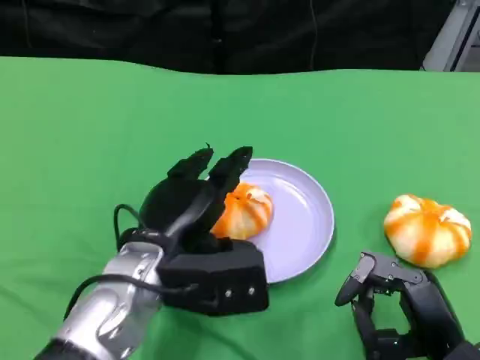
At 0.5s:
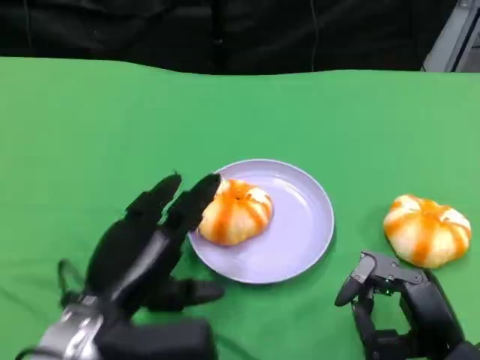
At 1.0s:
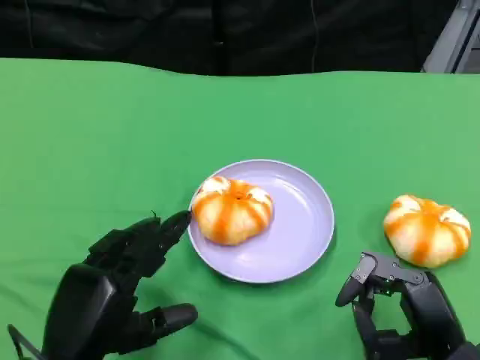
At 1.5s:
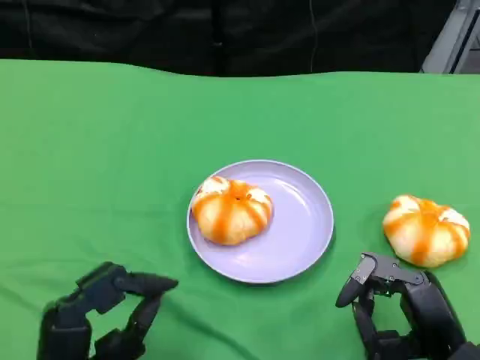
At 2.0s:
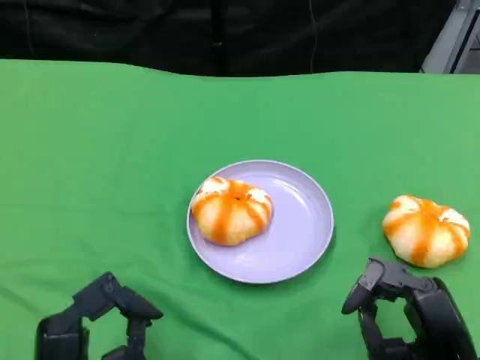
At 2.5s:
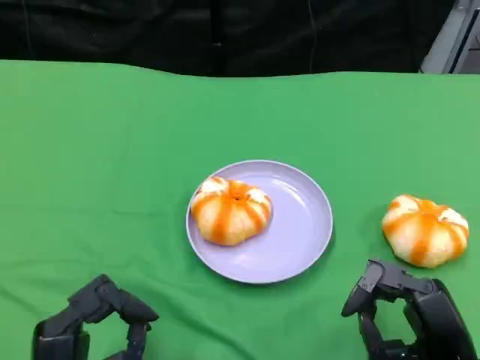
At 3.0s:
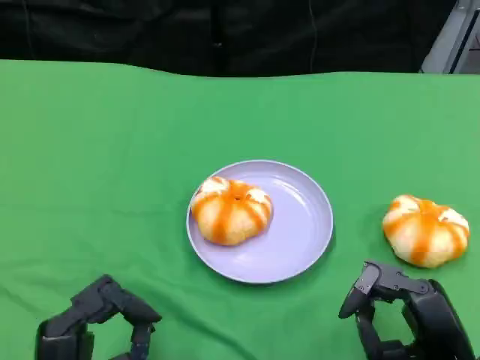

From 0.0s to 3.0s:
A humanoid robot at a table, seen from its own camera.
Task of the whole recording: Grasp the bread from the table and place it into the plate.
From 0.0s to 1.5s: The left hand is displaced backward, to the left and downward by about 15 cm.
From 1.5s to 3.0s: The hands make only small movements.

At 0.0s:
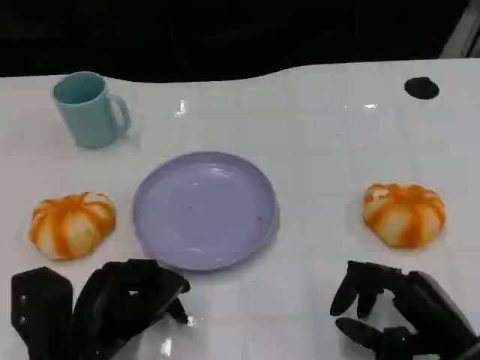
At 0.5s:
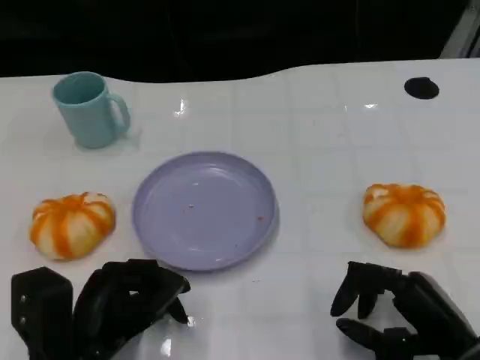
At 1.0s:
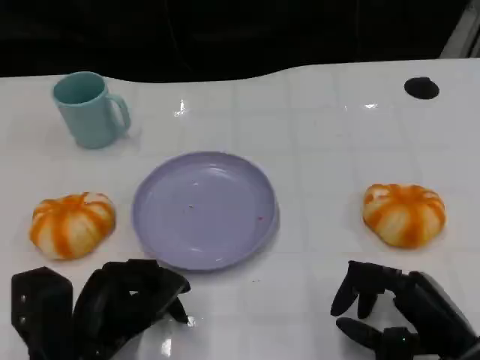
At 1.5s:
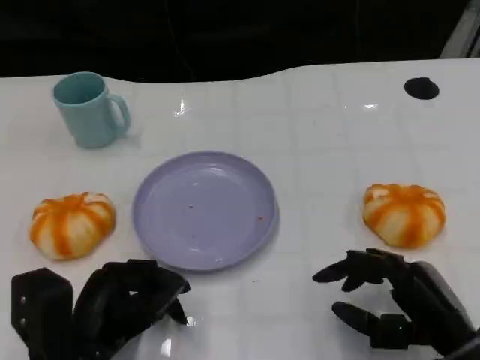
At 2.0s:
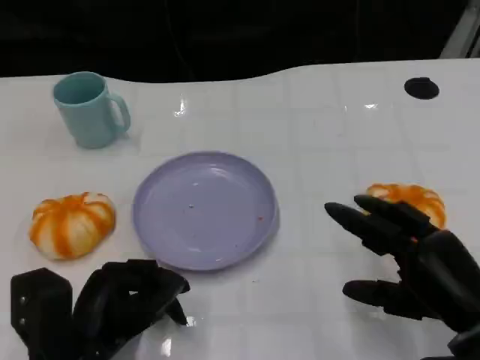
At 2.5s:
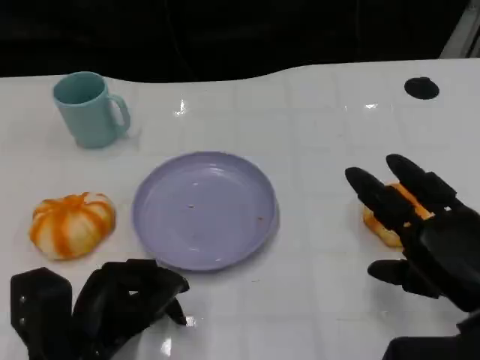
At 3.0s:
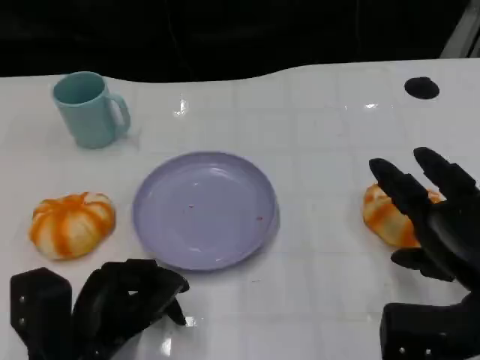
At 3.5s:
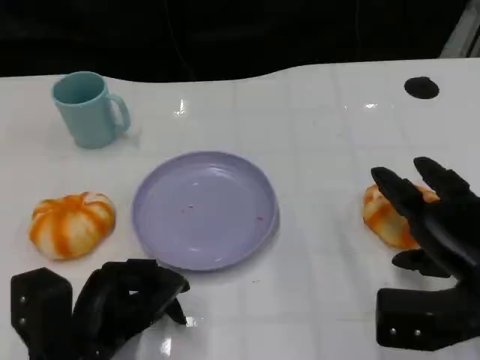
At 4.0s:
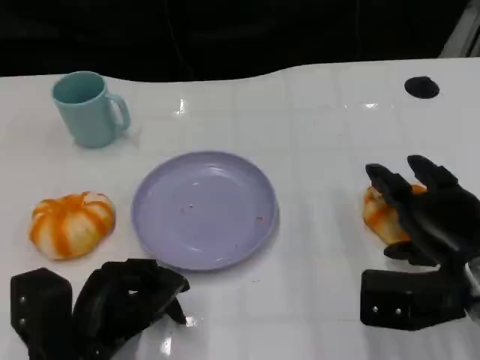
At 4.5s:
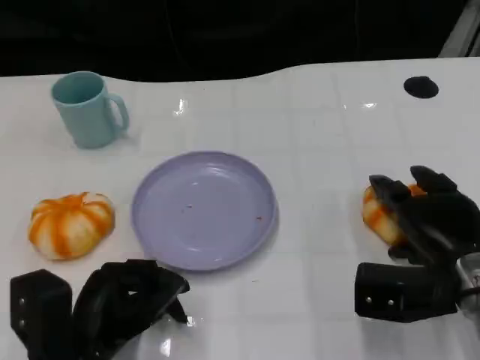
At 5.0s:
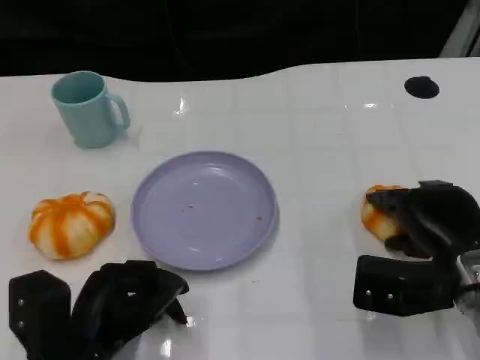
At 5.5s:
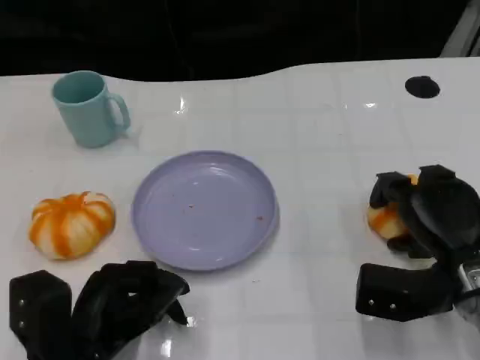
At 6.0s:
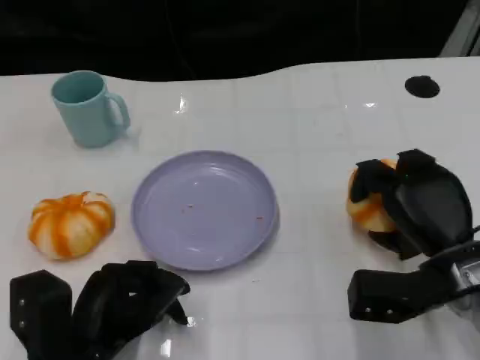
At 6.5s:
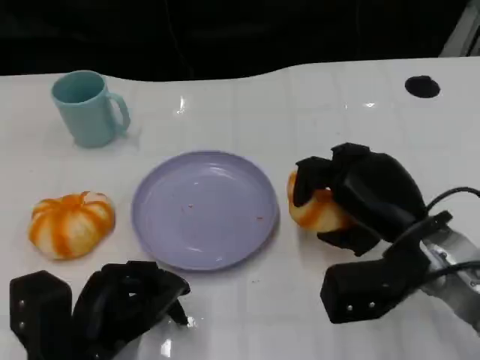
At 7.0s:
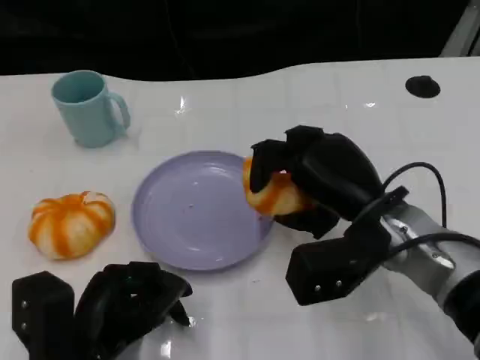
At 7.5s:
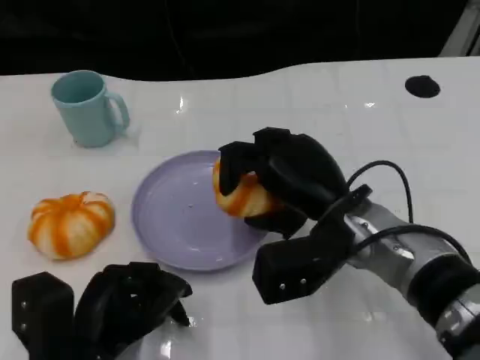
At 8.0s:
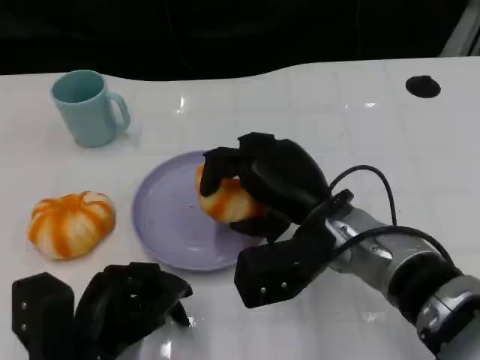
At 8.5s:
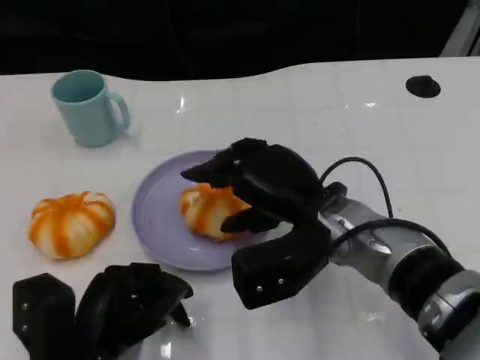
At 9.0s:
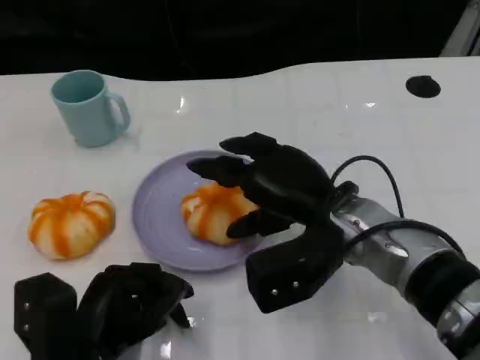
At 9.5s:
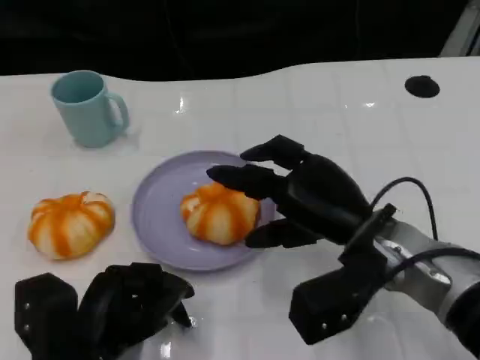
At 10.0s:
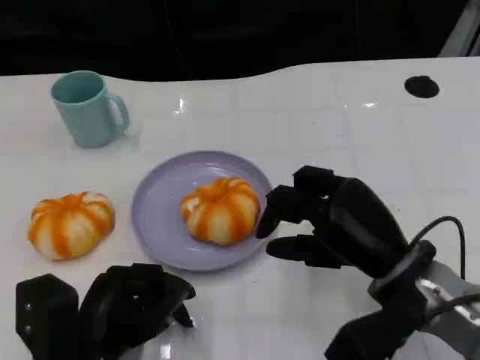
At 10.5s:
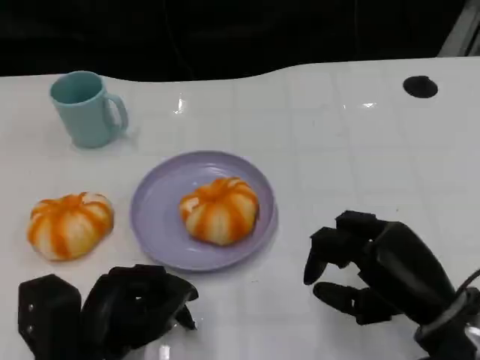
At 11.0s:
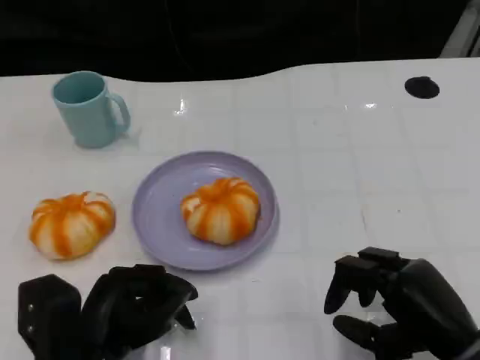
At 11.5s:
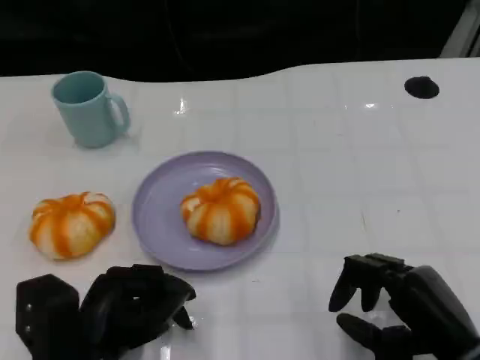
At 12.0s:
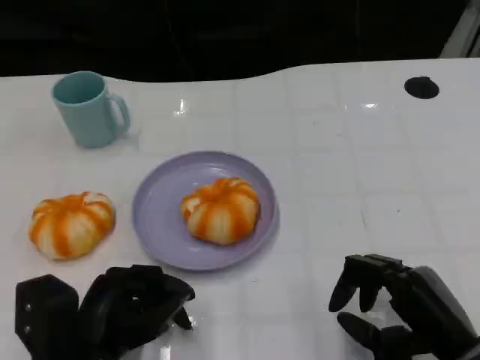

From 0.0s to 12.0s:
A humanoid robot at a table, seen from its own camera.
Task of the whole recording: Grasp the bread from the table and place it into the plate.
From 2.0s to 4.0s: The right hand is displaced forward by roughly 5 cm.
From 6.0s to 8.0s: The right hand goes some 15 cm to the left.
From 8.0s to 10.0s: The right hand moves to the right, roughly 10 cm.
From 10.0s to 12.0s: The right hand shifts roughly 10 cm backward and to the right.

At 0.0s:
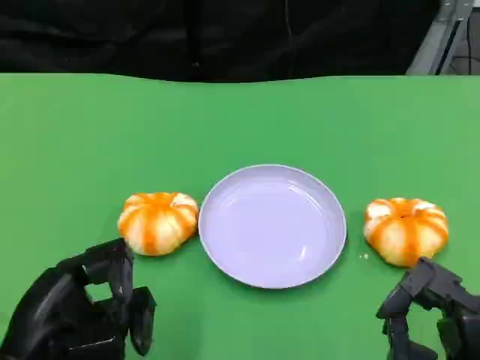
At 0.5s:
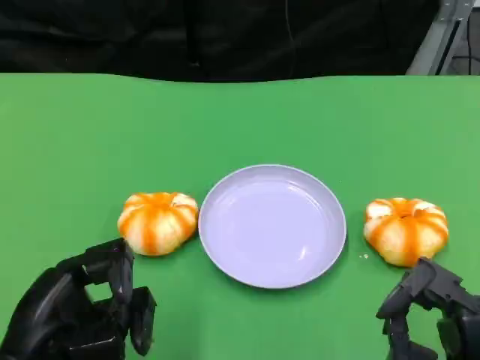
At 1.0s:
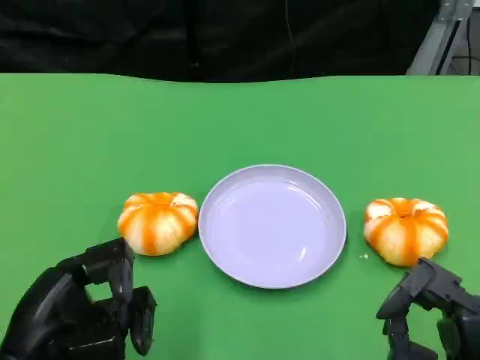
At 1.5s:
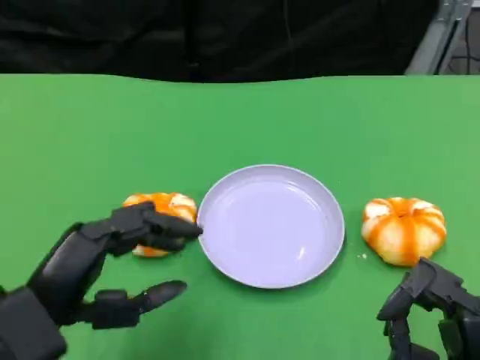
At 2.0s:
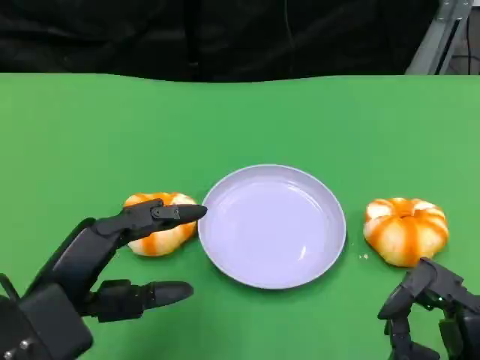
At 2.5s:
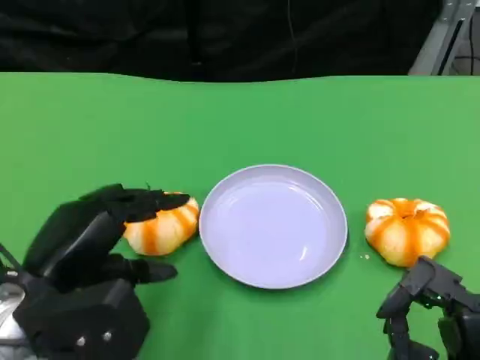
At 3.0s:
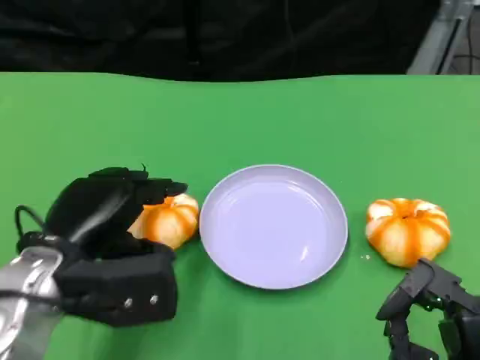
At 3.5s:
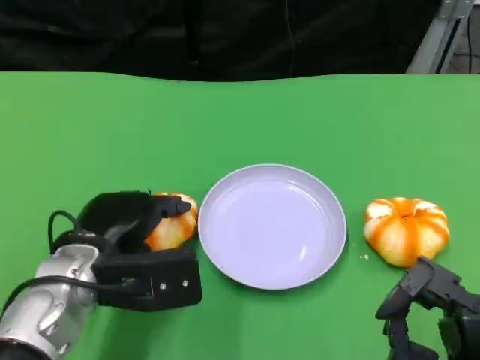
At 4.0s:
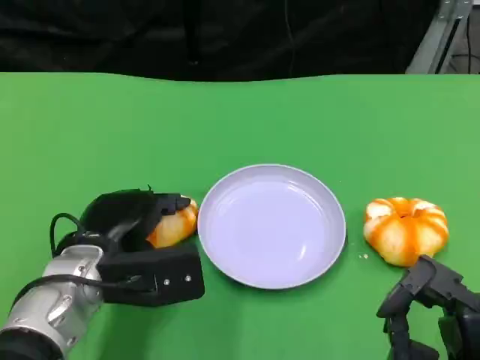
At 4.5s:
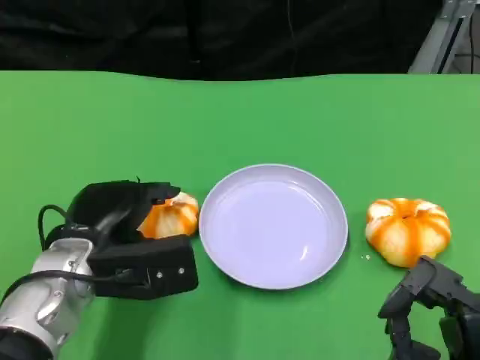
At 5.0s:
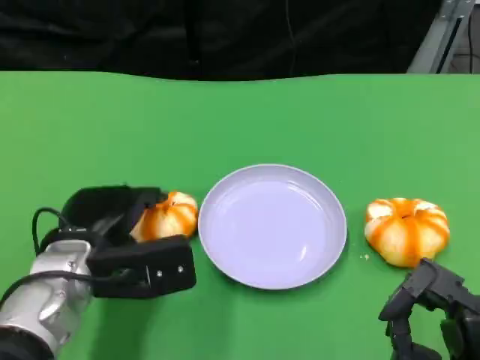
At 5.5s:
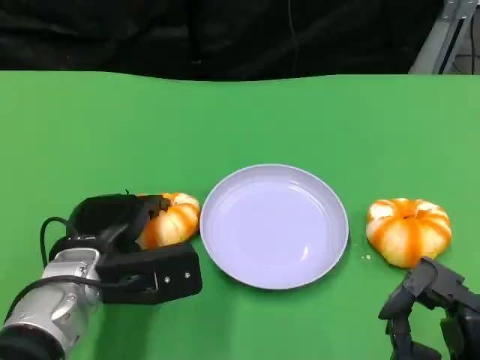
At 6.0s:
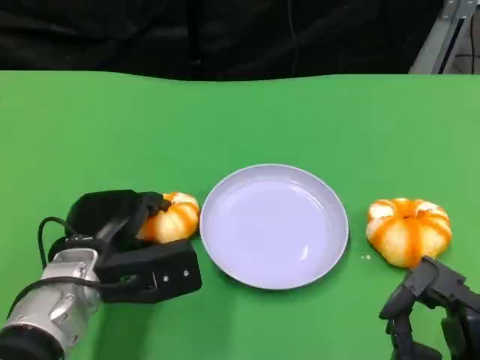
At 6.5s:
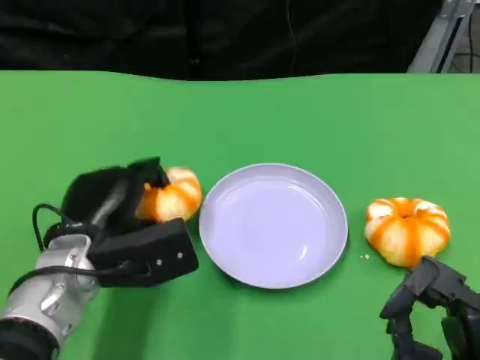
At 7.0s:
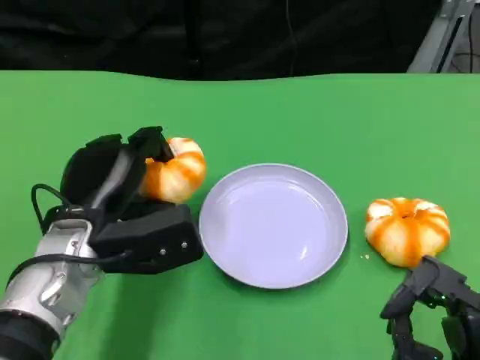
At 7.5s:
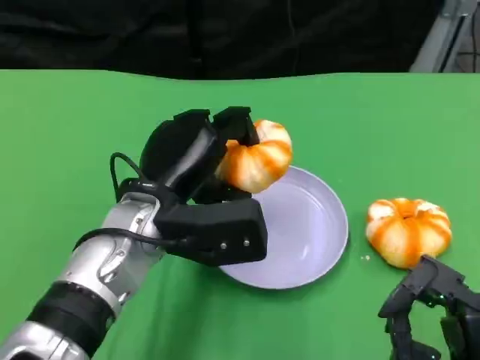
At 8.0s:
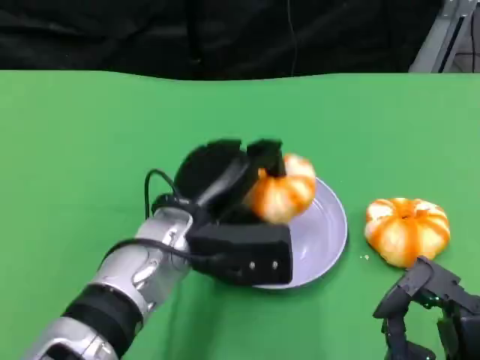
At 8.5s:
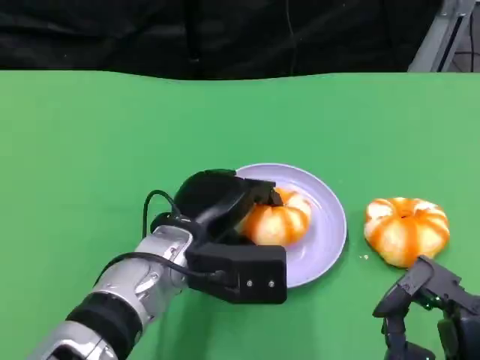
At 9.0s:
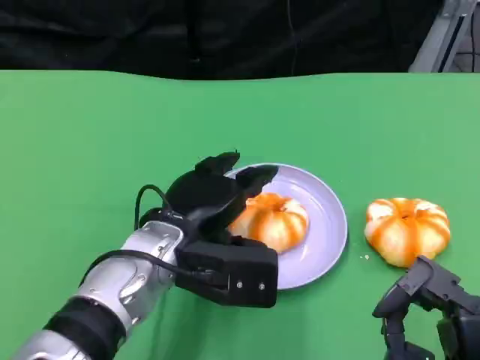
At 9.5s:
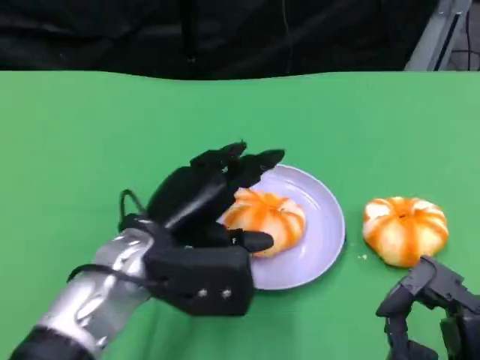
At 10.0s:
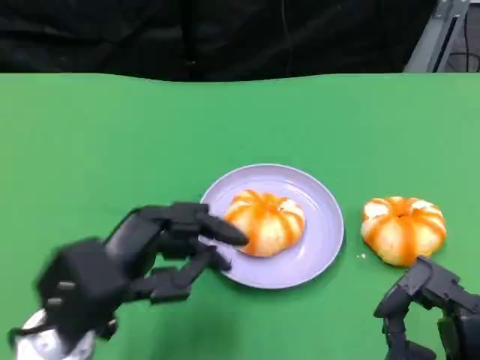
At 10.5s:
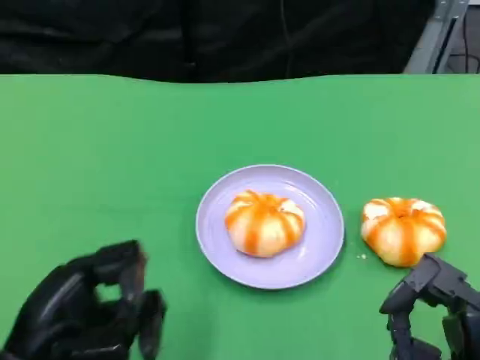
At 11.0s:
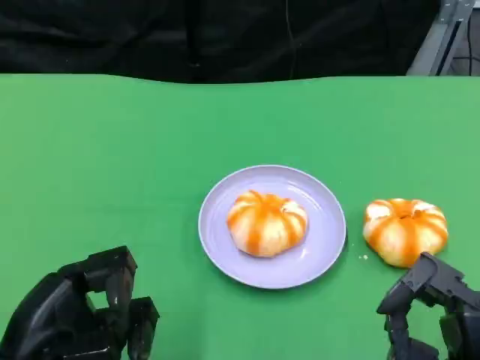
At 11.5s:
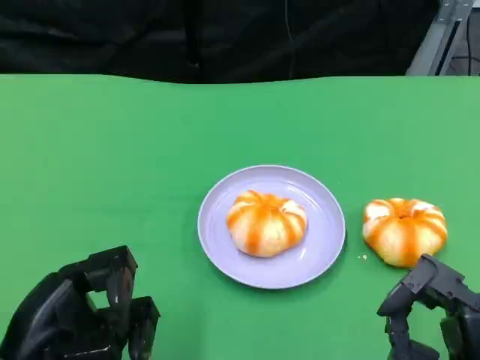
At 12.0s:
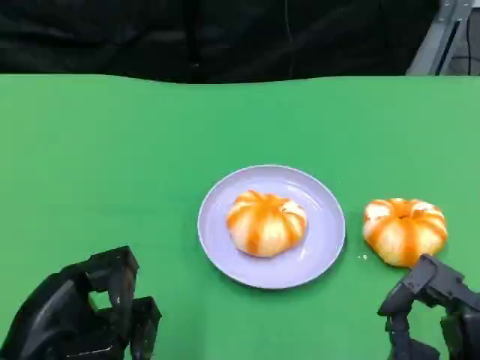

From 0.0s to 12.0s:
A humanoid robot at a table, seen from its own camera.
Task of the whole recording: Grasp the bread from the table and place it into the plate.
From 2.0s to 4.0s: The left hand travels forward and downward by roughly 10 cm.
From 4.0s to 6.0s: The hands stay close to where they were, moving slightly.
From 6.0s to 8.0s: The left hand travels to the right by roughly 10 cm.
From 8.0s to 10.0s: The left hand travels to the left and backward by roughly 15 cm.
From 10.0s to 12.0s: The left hand changes place by roughly 5 cm.
